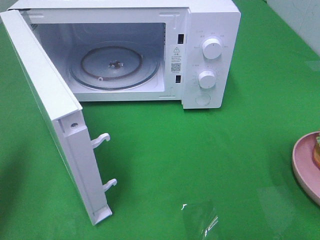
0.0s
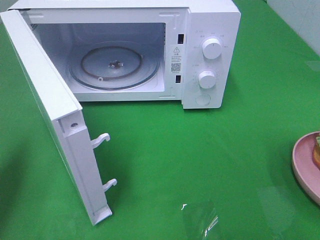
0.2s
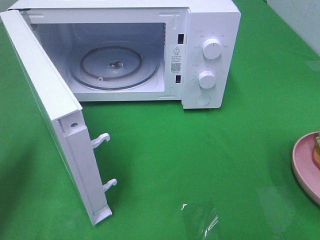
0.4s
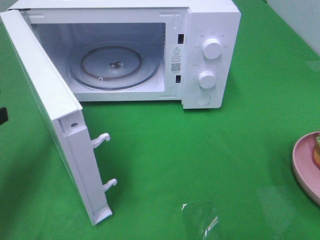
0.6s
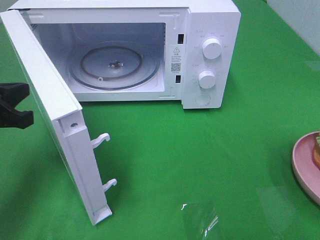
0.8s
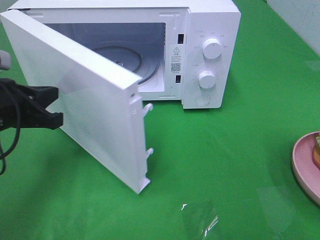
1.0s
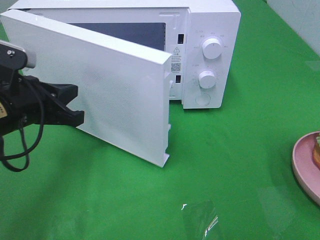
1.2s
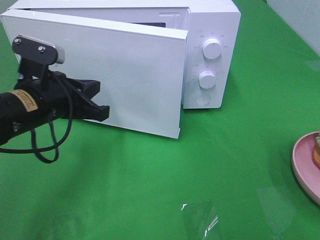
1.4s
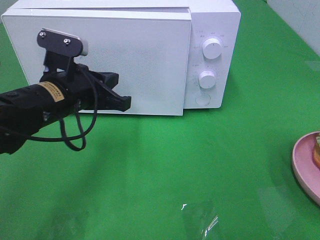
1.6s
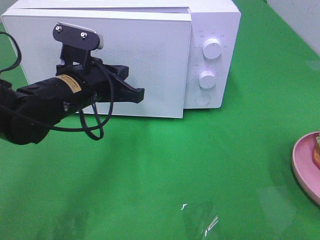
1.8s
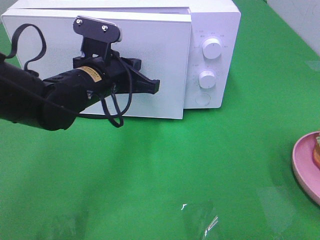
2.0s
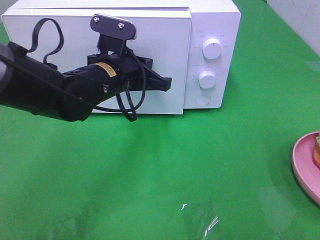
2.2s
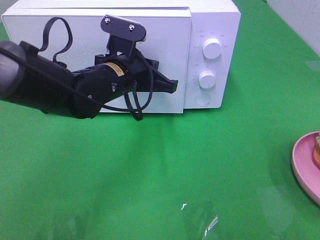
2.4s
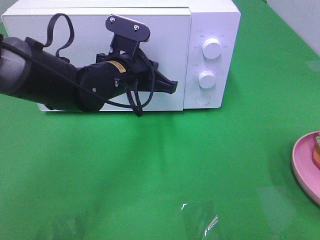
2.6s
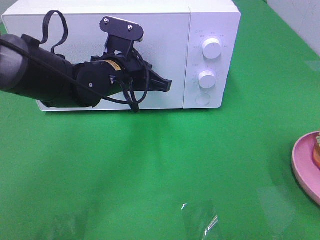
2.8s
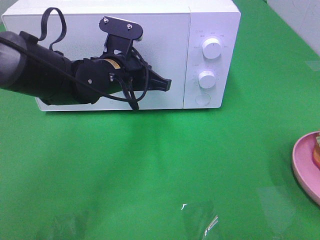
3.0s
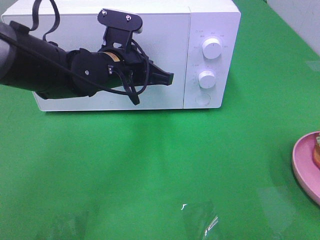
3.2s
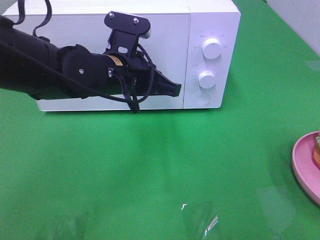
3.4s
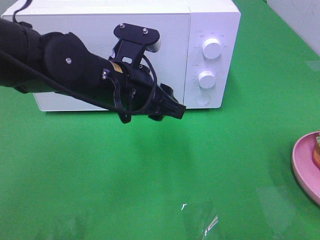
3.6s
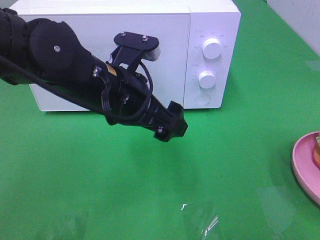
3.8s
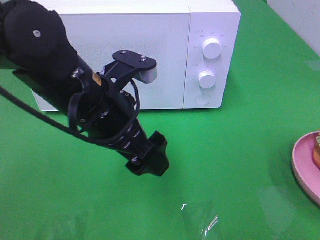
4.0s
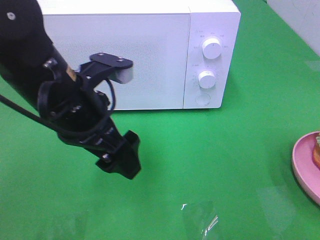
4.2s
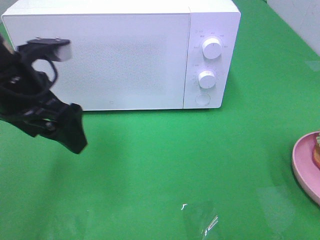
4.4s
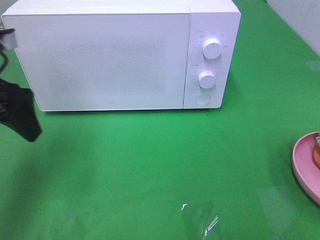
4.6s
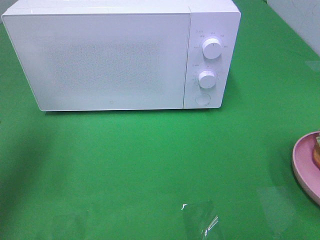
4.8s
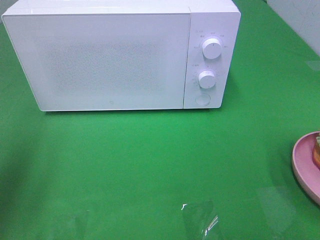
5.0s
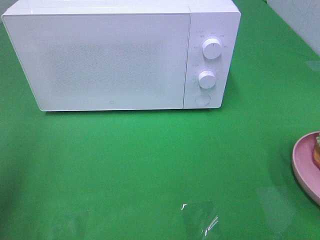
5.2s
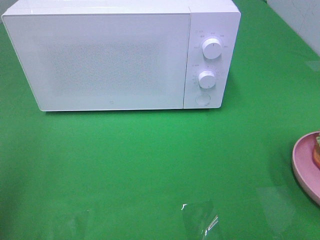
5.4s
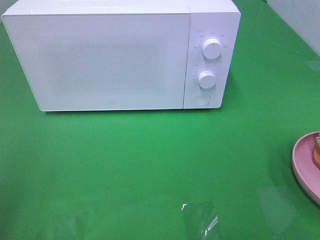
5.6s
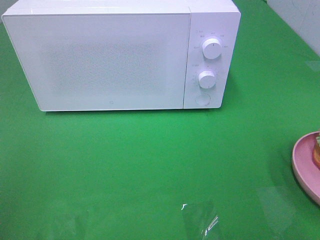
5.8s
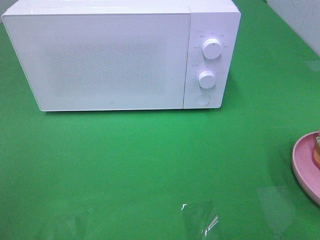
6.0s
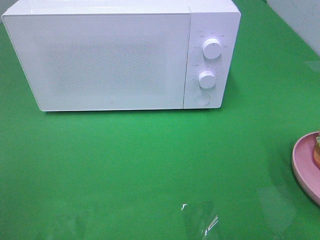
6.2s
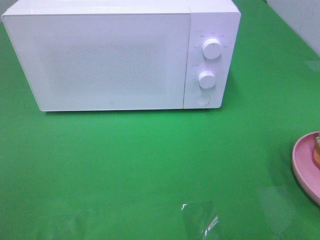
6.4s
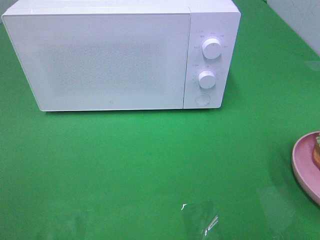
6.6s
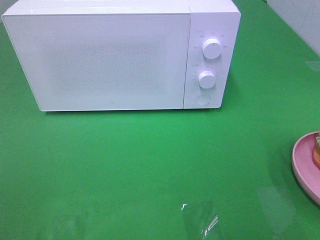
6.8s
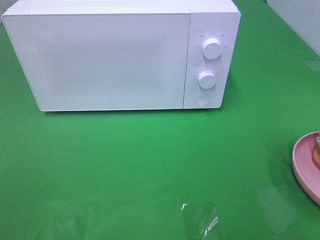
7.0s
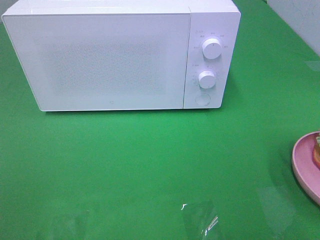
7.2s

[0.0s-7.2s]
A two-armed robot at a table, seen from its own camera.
Task of the whole recording: Heat the burger.
Step, 0.0s to 3.2s: Left hand: close the microwave door.
0.0s to 1.4s: The left gripper shifts approximately 20 cm to the right, forward and downward.
1.4s to 2.8s: The left gripper goes some 10 cm to the right and forward.
2.8s to 4.4s: The left gripper moves to the left, backward and upward, approximately 15 cm, and opens.
4.4s to 5.8s: The left gripper goes some 25 cm backward and to the left.

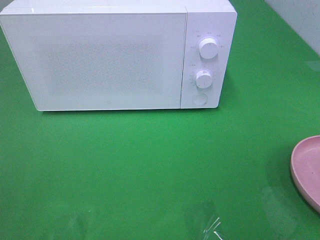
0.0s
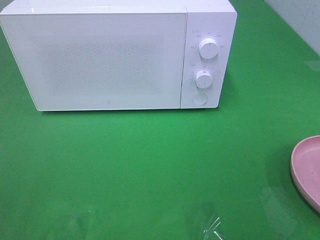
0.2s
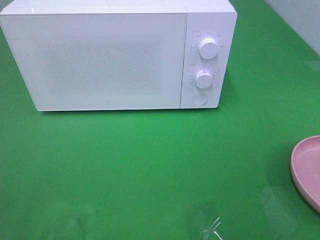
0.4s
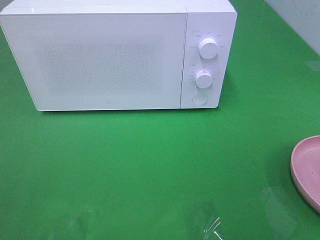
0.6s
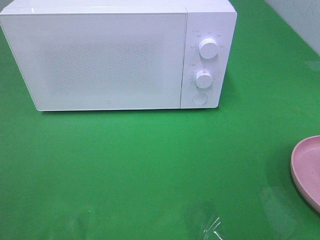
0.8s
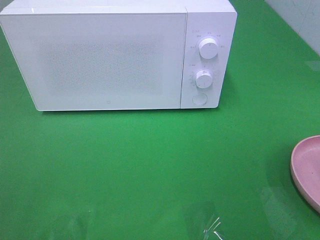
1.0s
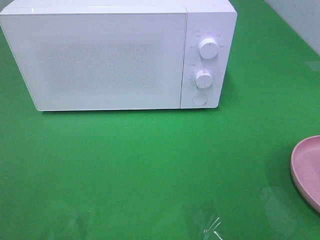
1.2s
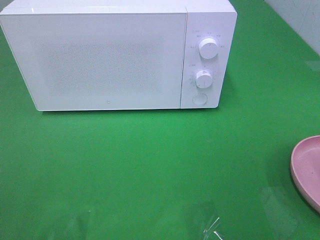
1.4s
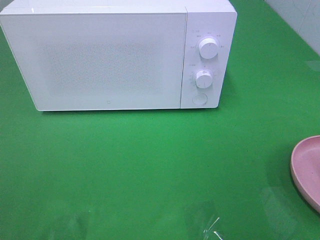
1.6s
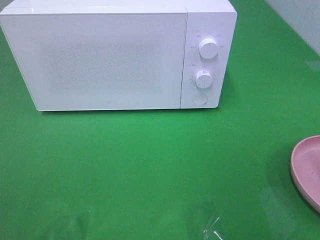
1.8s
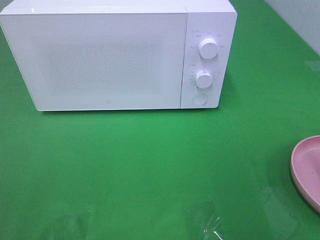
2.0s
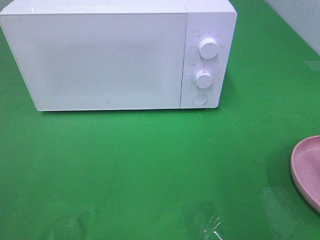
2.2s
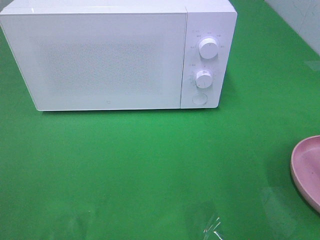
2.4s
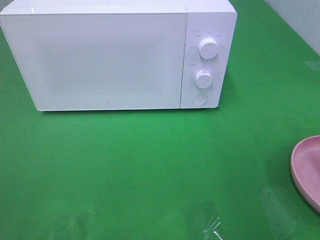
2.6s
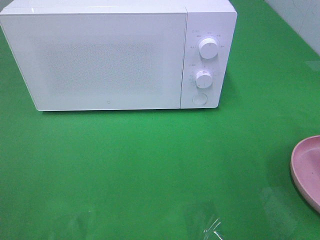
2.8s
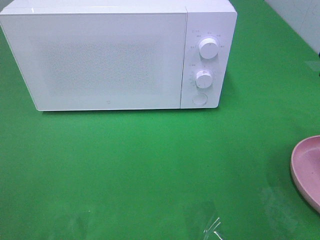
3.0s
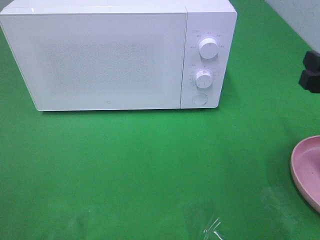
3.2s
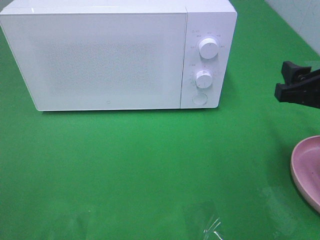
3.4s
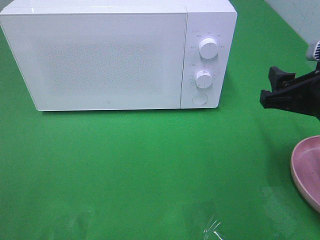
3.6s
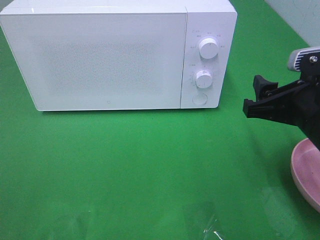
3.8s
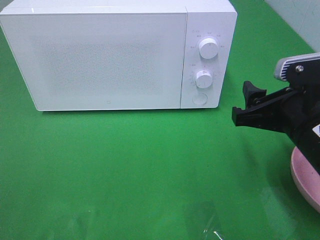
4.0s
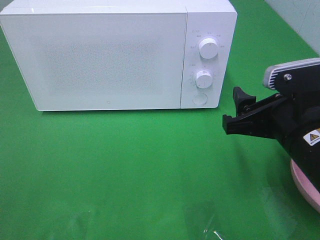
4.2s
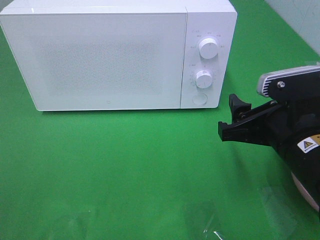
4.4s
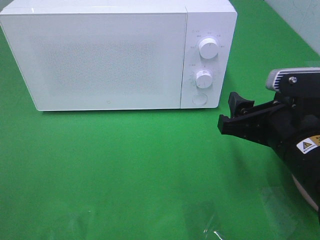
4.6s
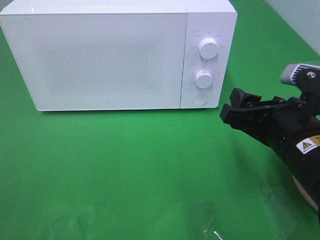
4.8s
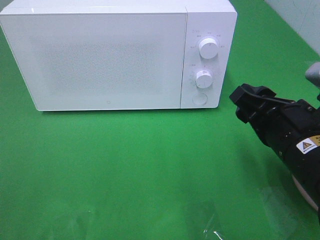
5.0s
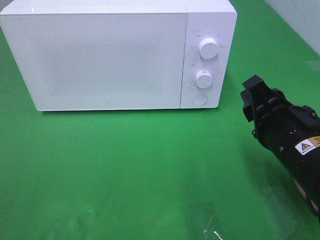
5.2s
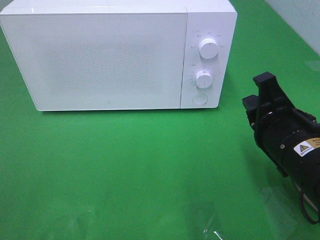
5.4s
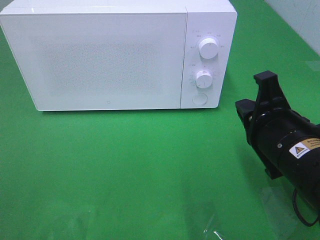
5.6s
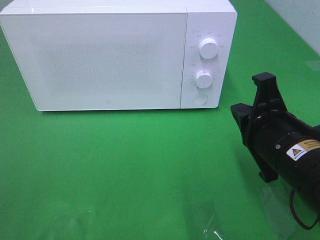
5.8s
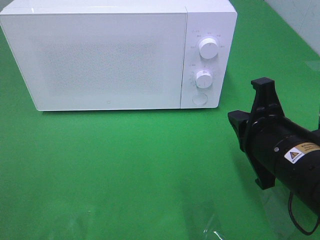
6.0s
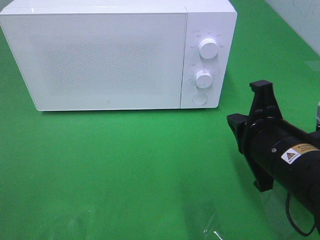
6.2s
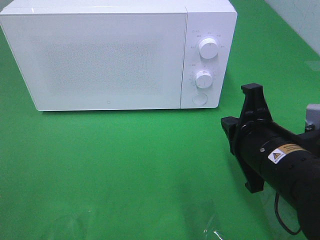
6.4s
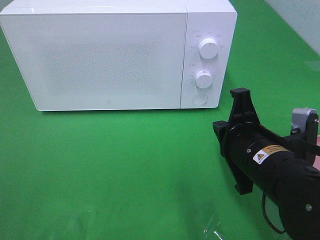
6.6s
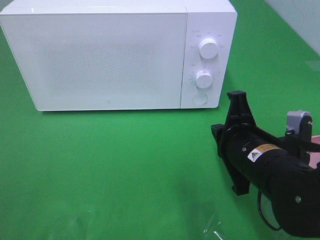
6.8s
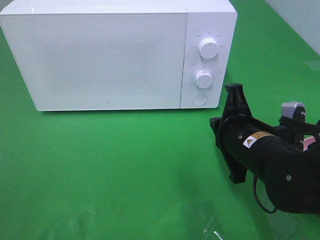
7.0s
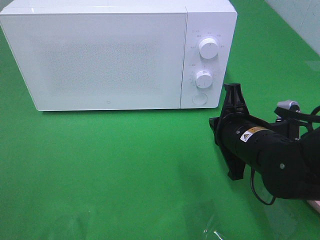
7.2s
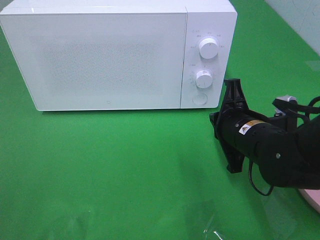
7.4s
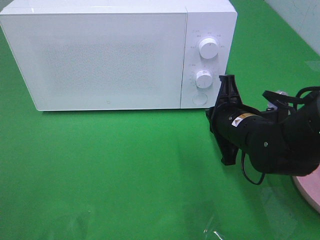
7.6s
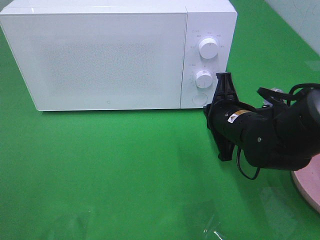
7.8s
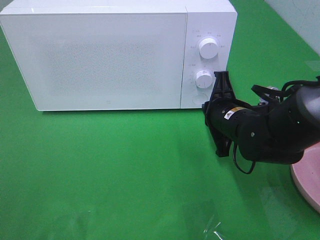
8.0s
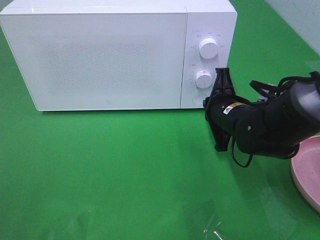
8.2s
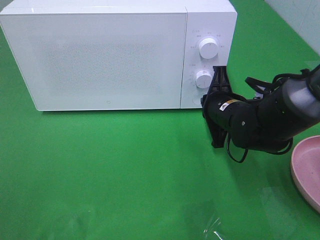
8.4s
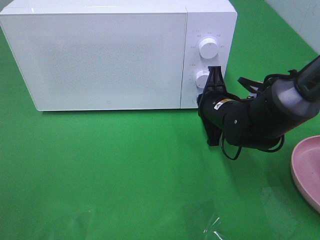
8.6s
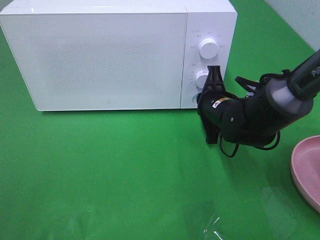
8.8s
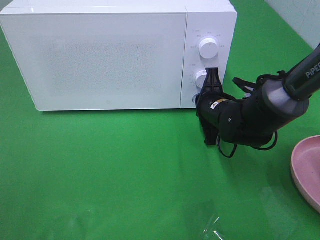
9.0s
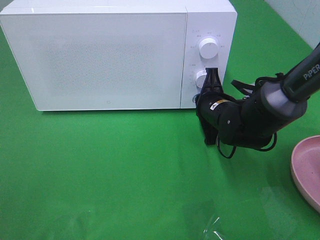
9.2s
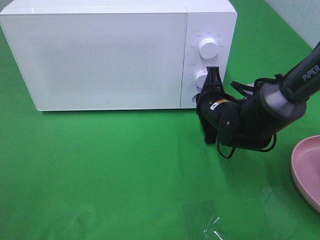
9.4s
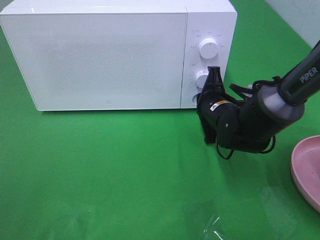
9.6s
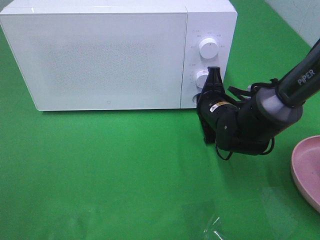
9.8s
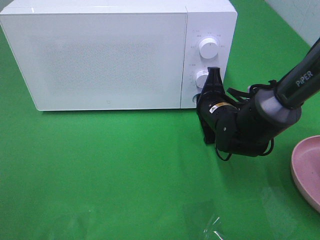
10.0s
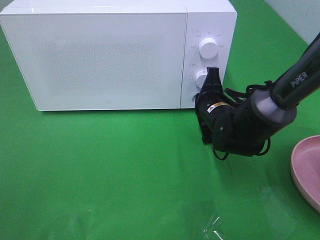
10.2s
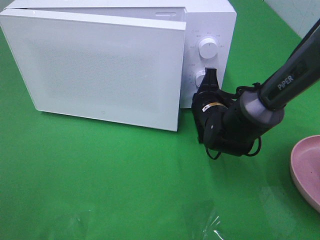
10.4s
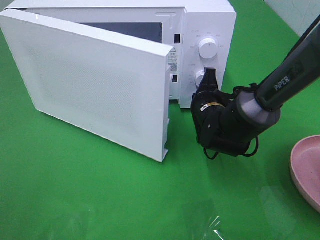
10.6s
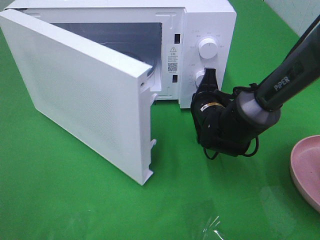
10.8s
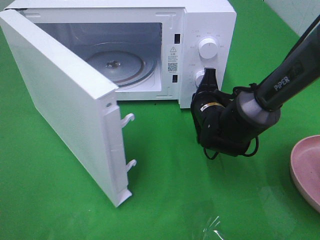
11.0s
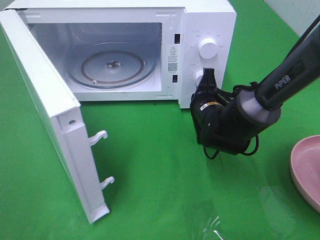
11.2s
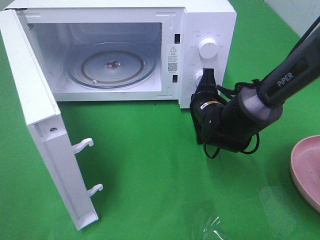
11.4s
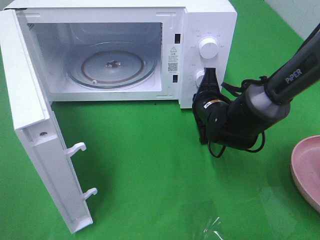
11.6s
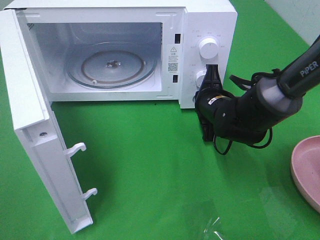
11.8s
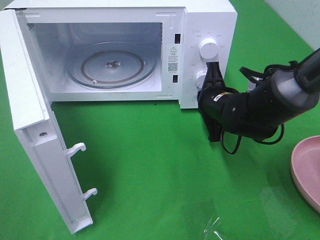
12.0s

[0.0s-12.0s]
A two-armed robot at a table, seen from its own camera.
Task of the whole recording: Heat the burger.
3.0s to 4.4s: The right gripper goes some 15 cm to the left and downward.
4.4s to 6.0s: The right gripper closes.
6.0s to 7.6s: The right gripper heads forward and downward, covering approximately 10 cm.
7.6s to 9.0s: The right gripper goes about 5 cm forward.
9.0s to 10.4s: The grippers stay close to where they were, moving slightly.

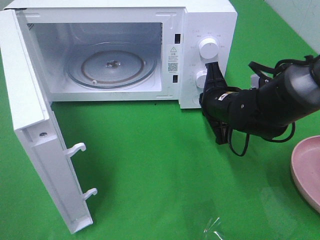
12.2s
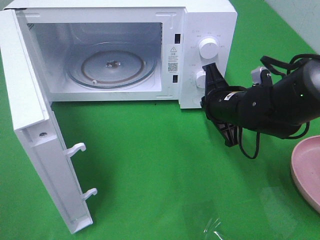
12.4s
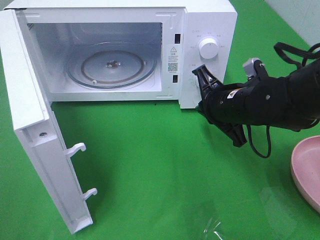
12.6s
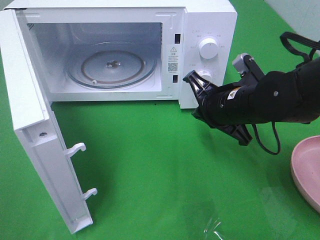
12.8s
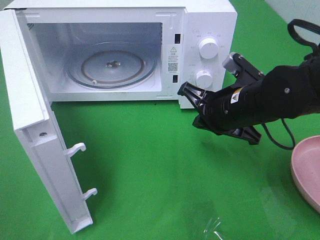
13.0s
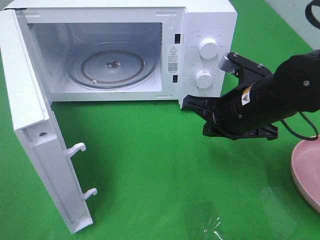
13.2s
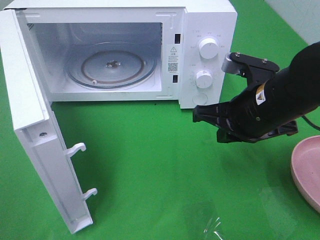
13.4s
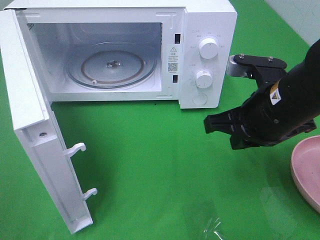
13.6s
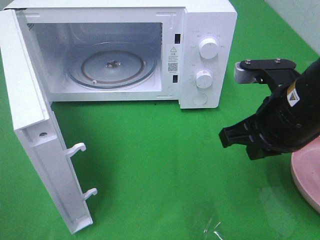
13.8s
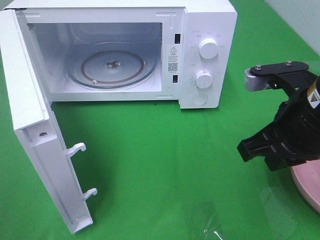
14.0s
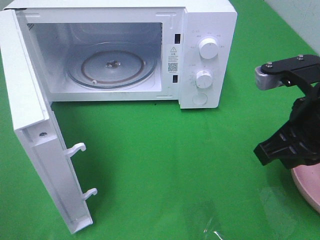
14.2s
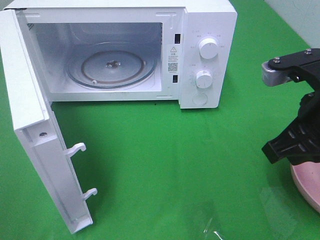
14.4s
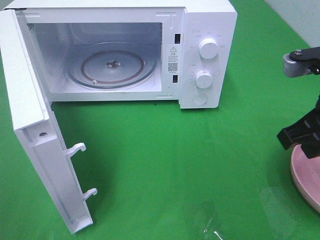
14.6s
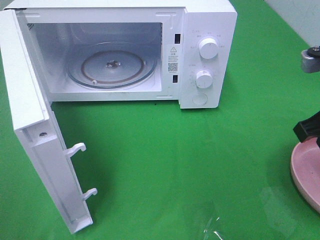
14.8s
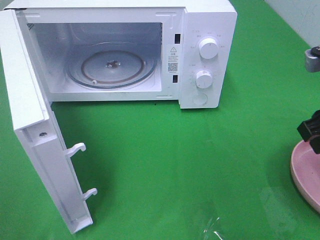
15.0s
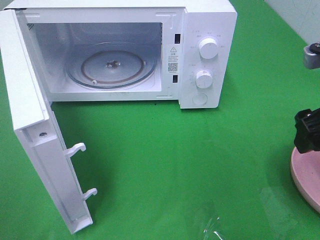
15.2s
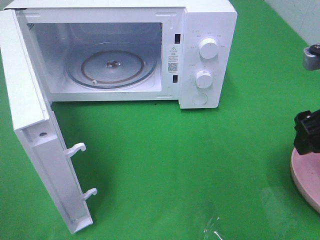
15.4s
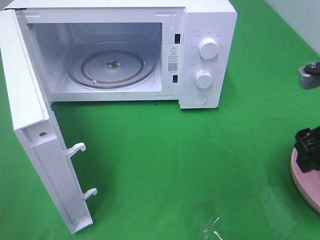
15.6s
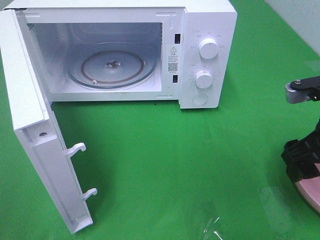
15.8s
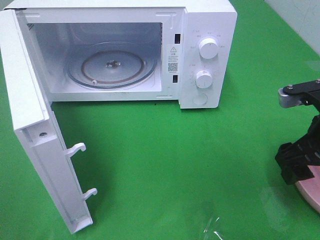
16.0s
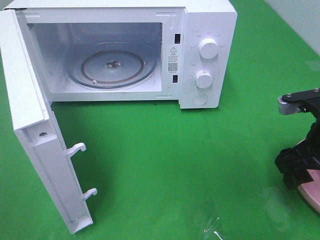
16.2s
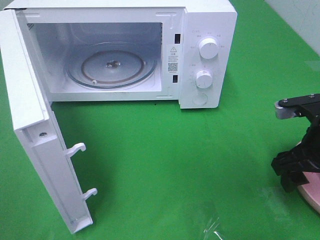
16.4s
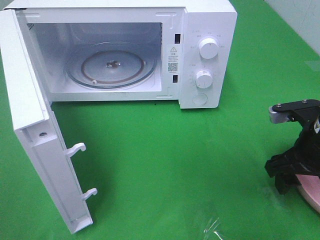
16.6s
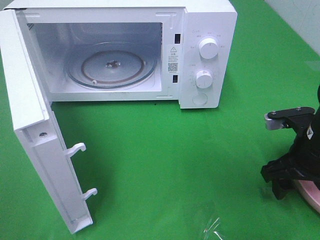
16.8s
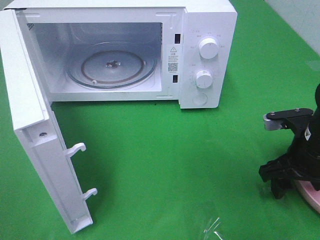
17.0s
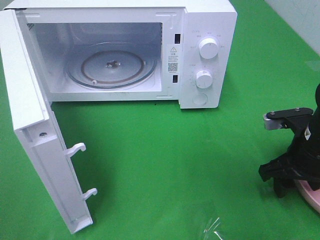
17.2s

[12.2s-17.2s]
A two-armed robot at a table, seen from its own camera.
Task of the whole recording: Heat the burger.
12.2s to 13.8s: The right gripper is displaced backward and upward by about 15 cm.
13.8s to 15.6s: The right gripper travels to the right by some 10 cm, and opens up.
15.6s to 17.2s: The right gripper goes about 10 cm downward.
